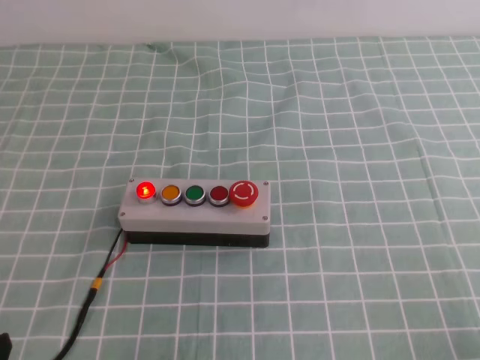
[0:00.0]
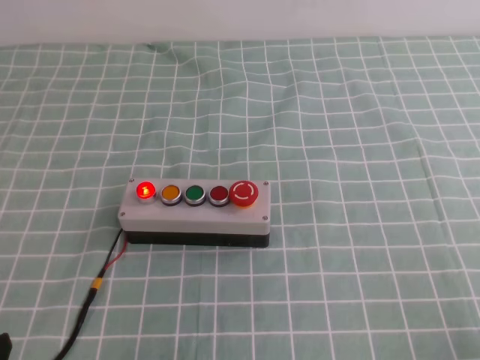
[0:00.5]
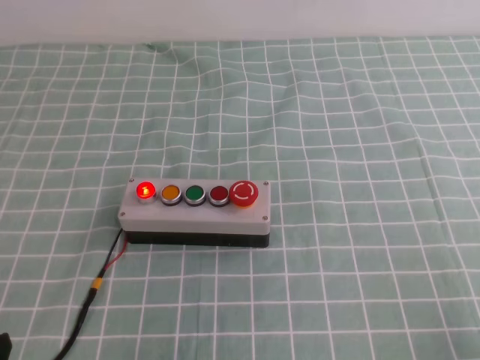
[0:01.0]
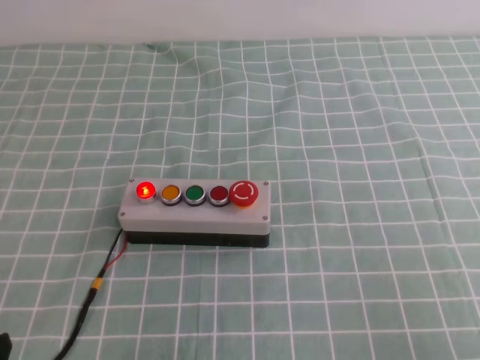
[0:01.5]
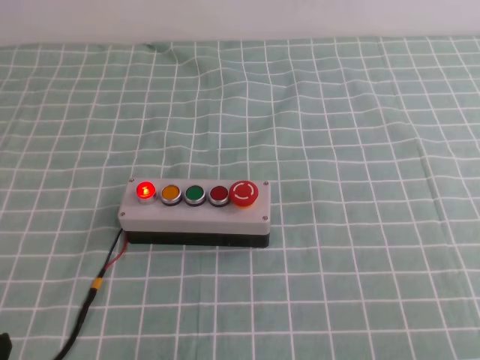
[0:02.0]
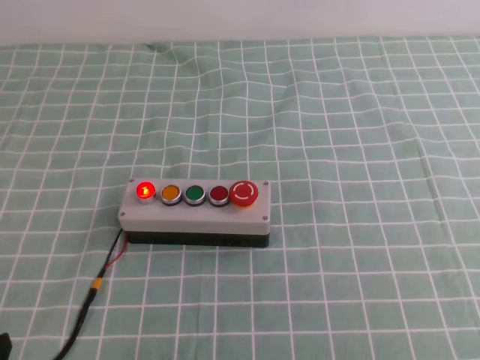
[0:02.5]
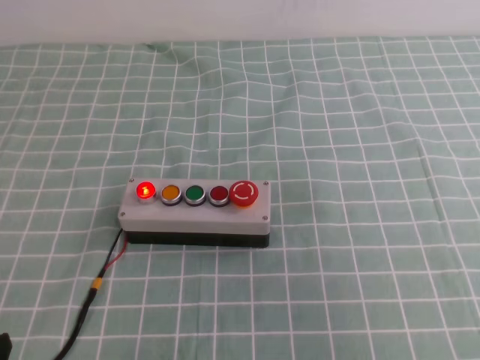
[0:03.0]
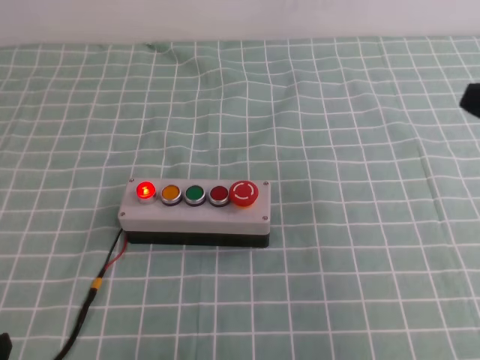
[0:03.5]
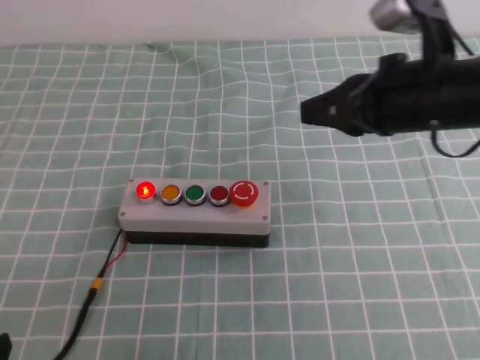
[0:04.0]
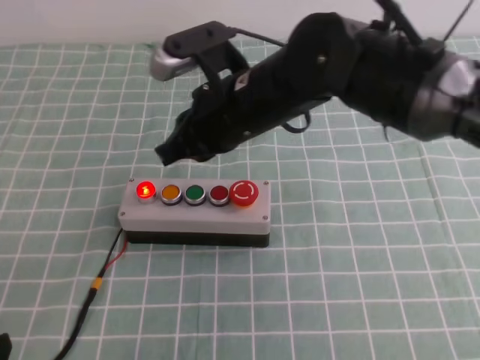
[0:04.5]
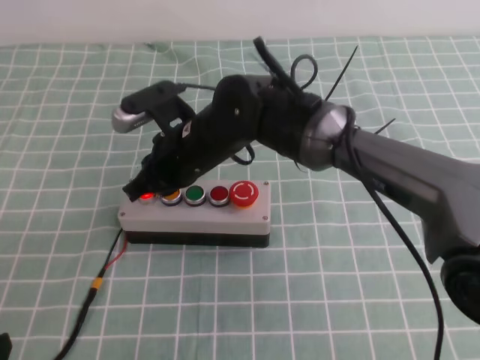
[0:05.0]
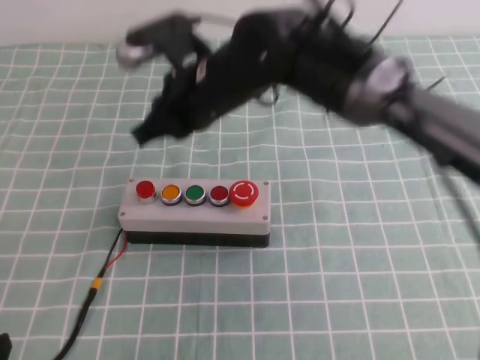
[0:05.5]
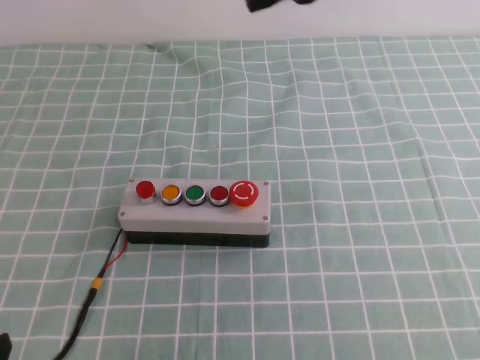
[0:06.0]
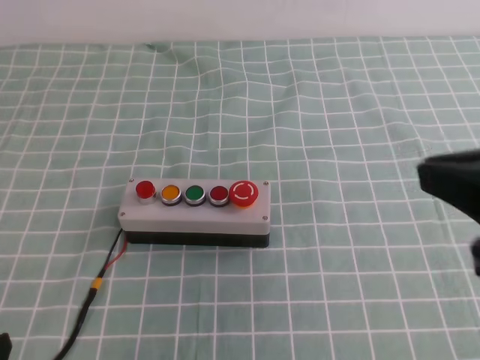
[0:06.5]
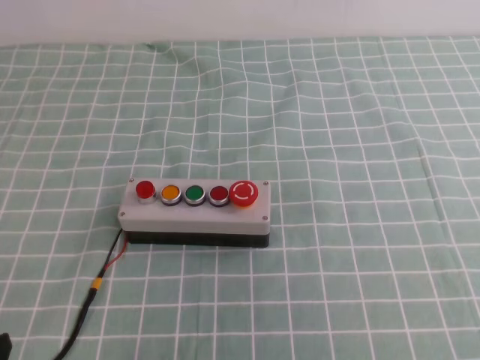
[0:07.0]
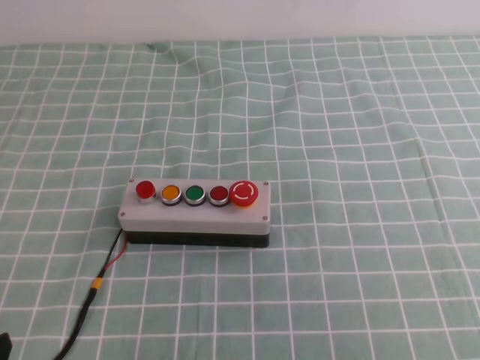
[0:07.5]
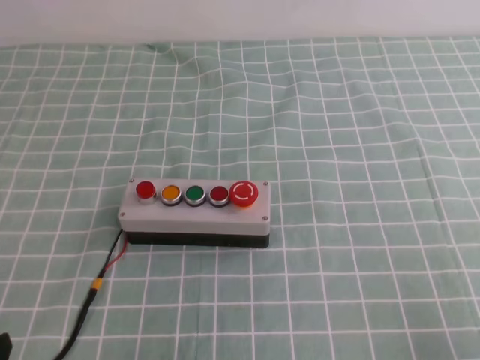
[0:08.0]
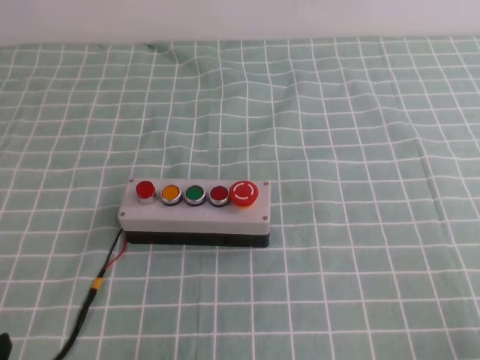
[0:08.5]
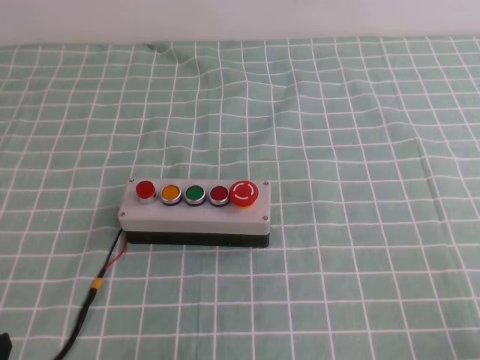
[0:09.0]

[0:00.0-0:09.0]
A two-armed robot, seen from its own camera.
Task of the whole recording: press the button switch on the cyan tablecloth with the right gripper to turn off the button.
Step, 0:00.0 to 0:09.0: Press the button to turn off.
0:02.0 to 0:04.5: The right gripper is displaced to the left and forward by about 40 cm.
0:04.5 to 0:07.0: The right gripper heads backward and to the right, covering approximately 35 cm.
0:07.0 to 0:09.0: The right gripper goes some 20 cm downward.
